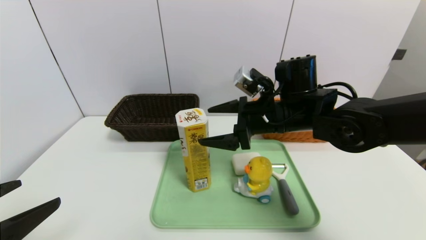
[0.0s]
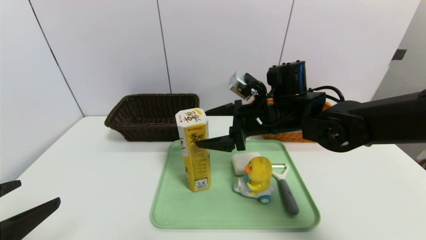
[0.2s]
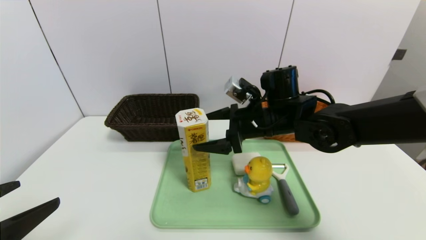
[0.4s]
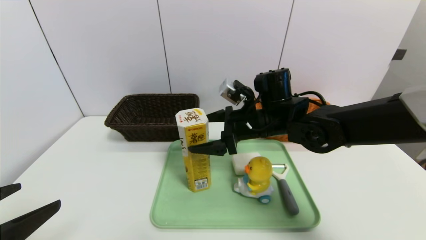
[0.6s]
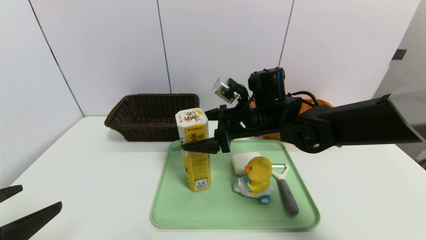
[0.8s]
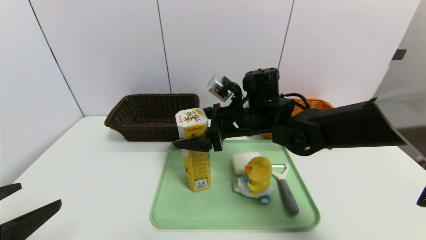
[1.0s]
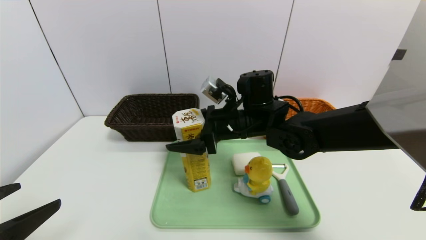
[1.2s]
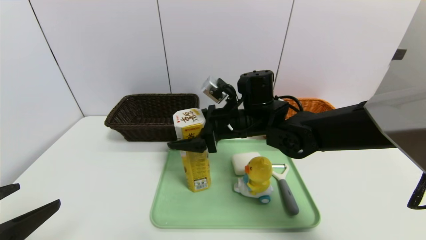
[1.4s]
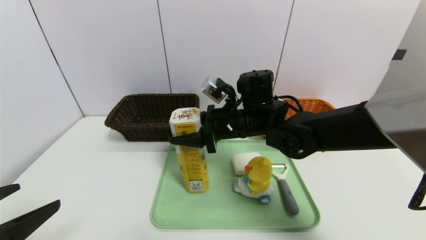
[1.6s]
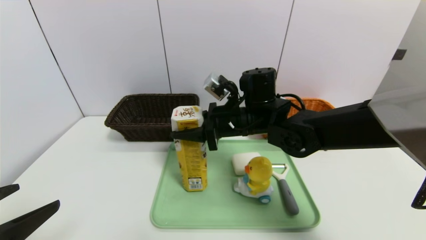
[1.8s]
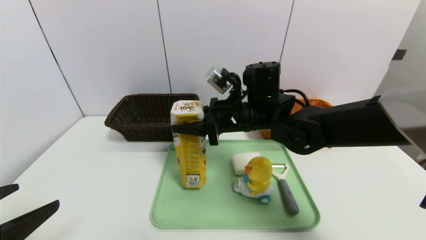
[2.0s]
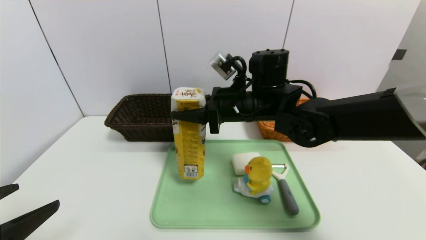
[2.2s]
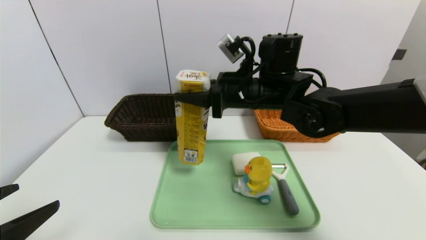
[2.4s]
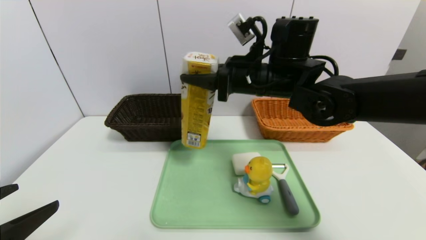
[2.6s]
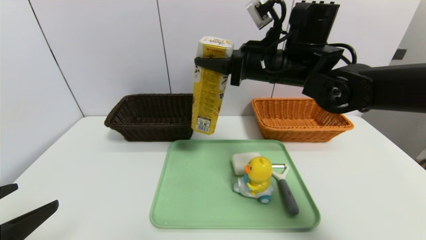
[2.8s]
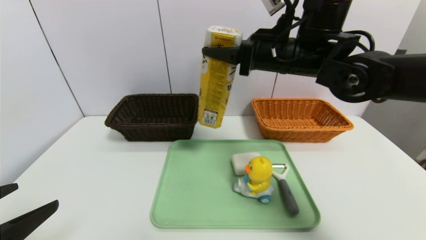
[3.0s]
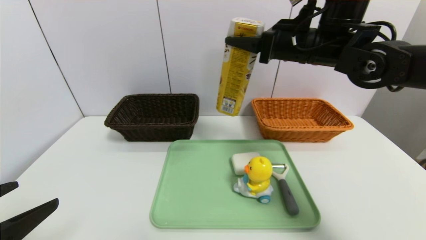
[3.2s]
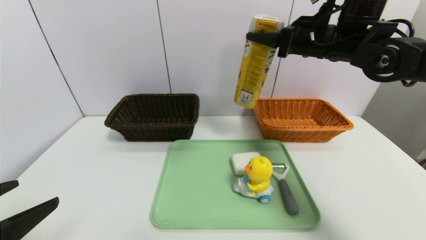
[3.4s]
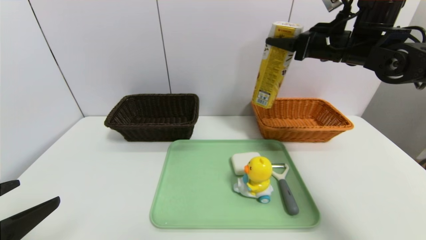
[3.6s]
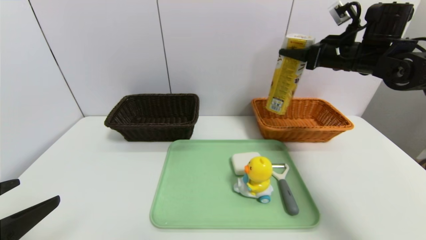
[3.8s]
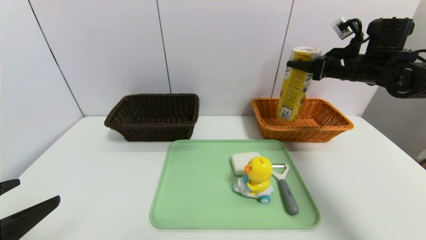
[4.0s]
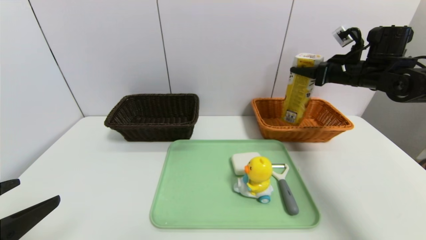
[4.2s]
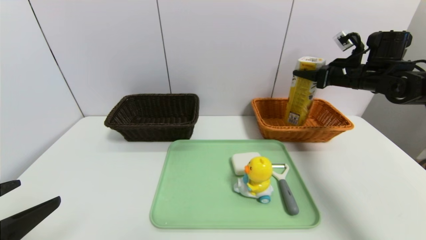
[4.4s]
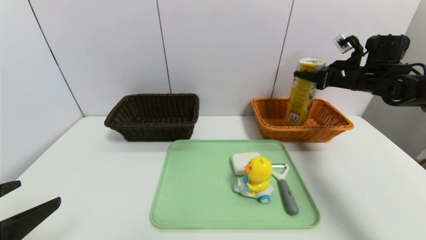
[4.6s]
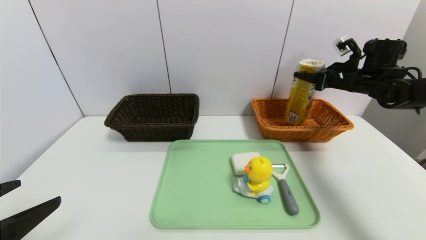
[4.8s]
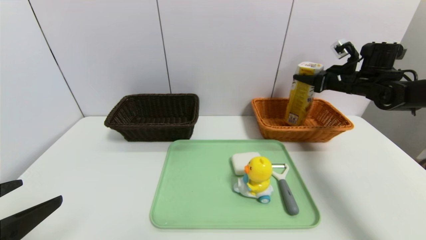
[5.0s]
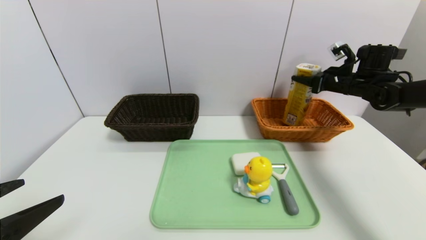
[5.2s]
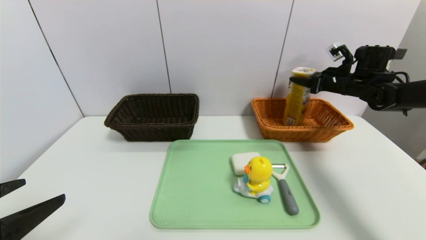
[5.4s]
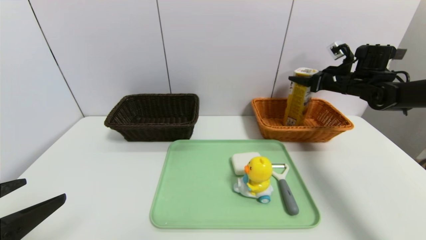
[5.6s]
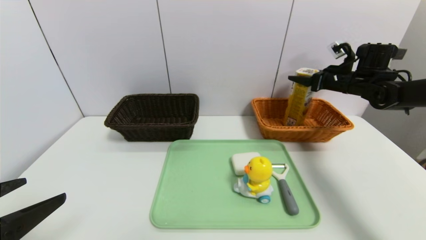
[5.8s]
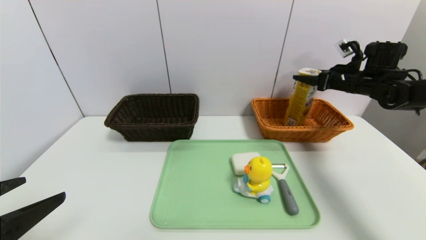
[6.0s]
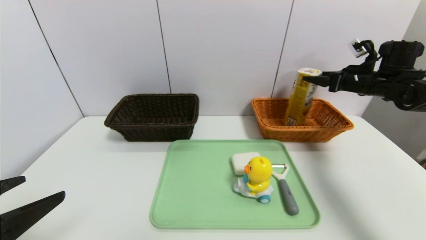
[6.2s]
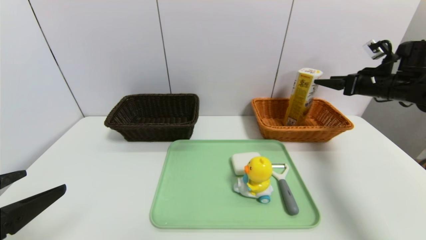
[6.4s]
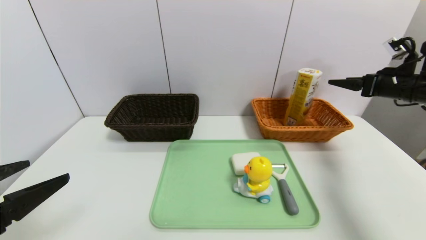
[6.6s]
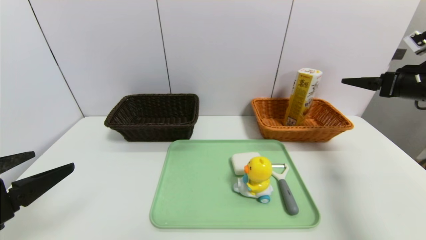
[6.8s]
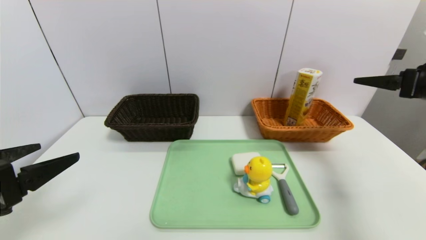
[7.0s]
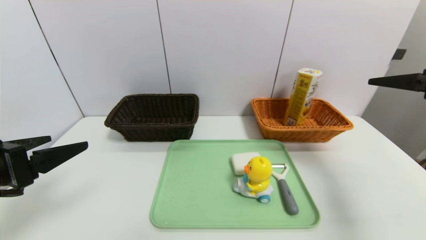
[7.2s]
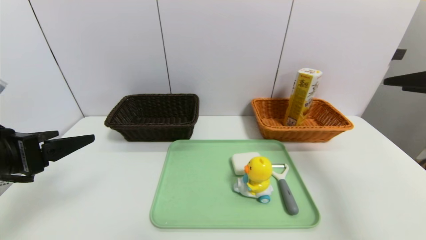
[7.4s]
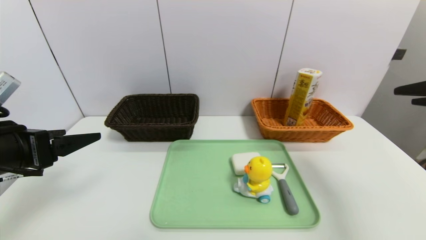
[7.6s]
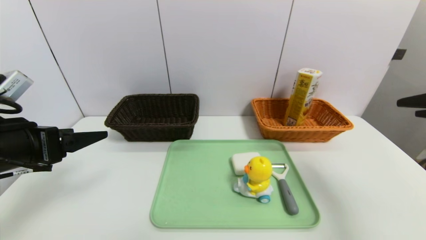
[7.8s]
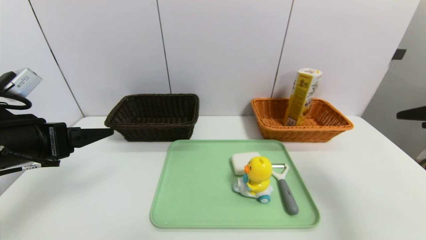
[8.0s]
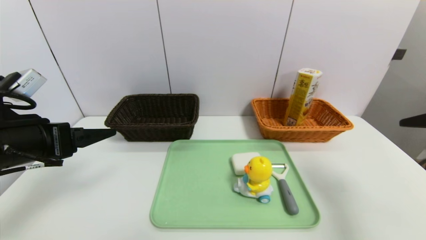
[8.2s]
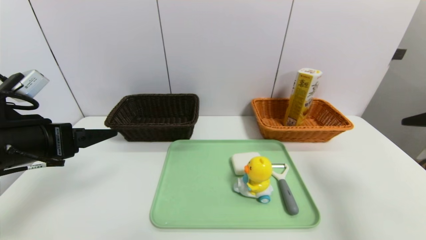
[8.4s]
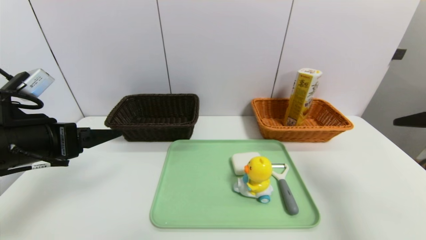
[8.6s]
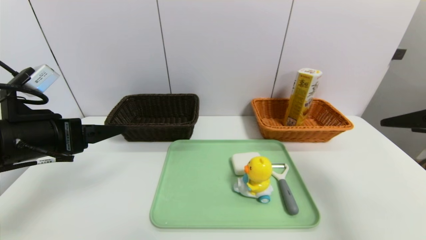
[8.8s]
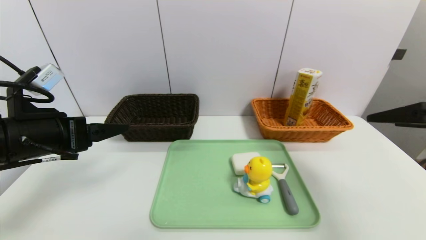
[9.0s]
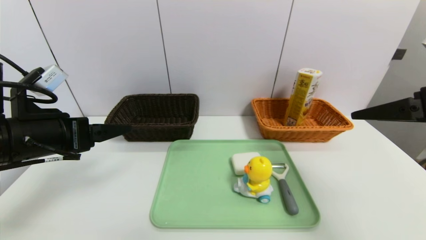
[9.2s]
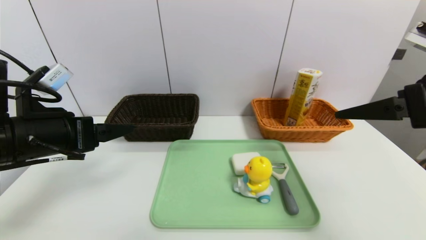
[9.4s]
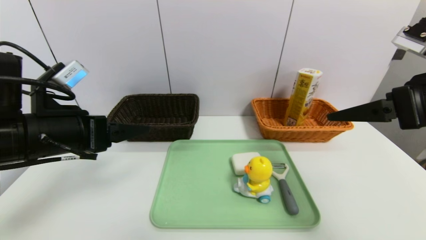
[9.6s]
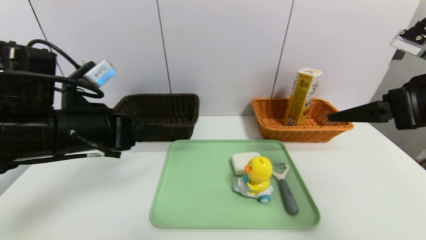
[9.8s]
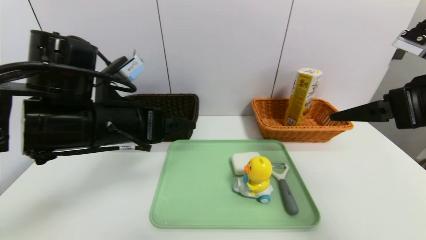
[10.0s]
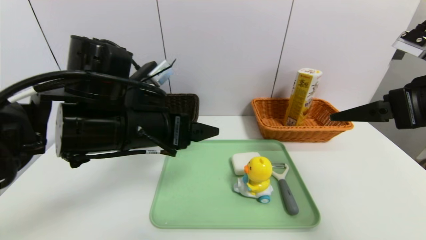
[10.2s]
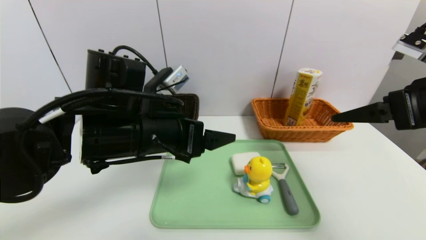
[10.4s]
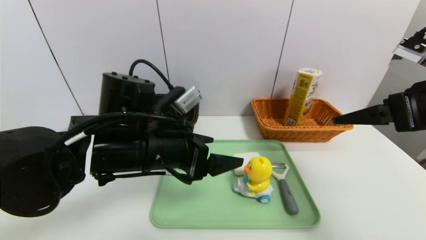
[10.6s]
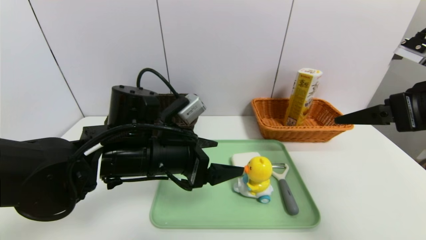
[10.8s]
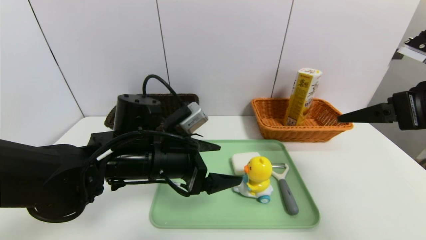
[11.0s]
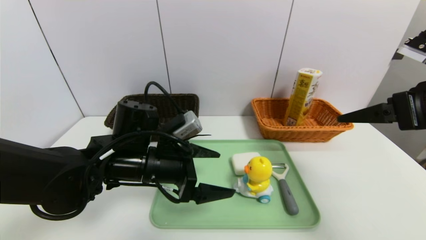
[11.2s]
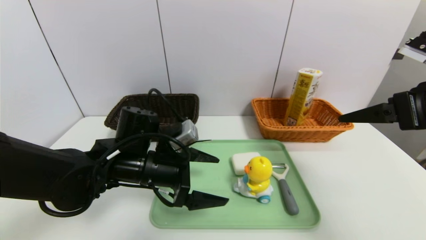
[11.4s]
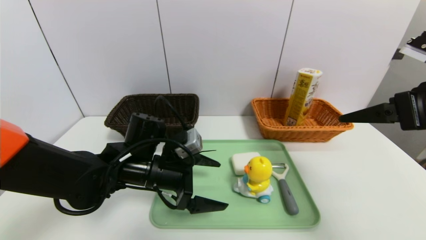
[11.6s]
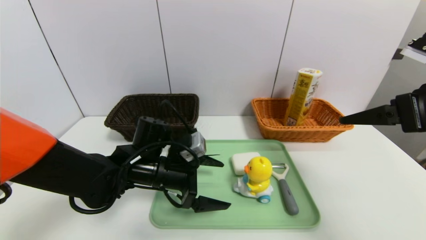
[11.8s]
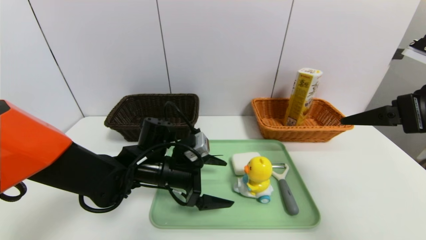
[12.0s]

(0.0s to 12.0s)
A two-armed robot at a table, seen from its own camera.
Task of the whole recording: place the food in the right basket with the right gripper, and place the non food items in the left basket with the left gripper.
Step, 0.0s - 6.2s: Grasp the potato chips and put it in the right basket.
0.0s - 1.6s: The right gripper heads to the left, covering about 5 cm, and closes its fingers.
1.6s - 3.0s: The right gripper goes approximately 15 cm upward and to the right.
3.0s - 4.4s: The right gripper is displaced to the right by roughly 20 cm.
4.4s - 6.0s: The right gripper opens.
6.0s - 7.6s: The left gripper shifts approximately 10 cm forward. Meanwhile the right gripper travels backward by approximately 25 cm.
9.0s - 10.4s: The left gripper shifts about 15 cm to the right.
10.4s - 12.0s: The left gripper is displaced downward and forward by about 15 cm.

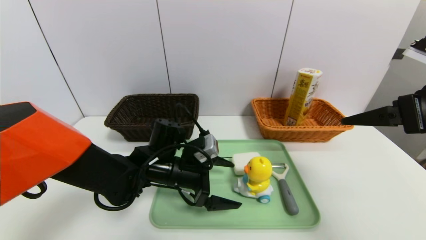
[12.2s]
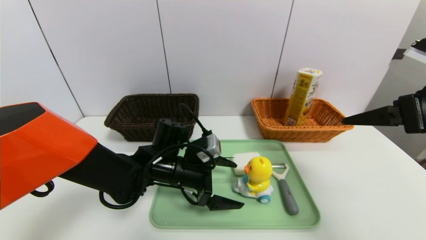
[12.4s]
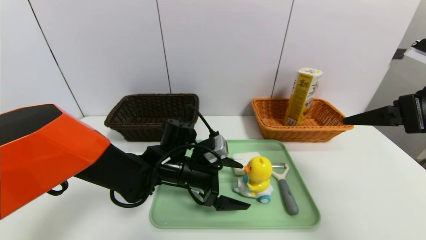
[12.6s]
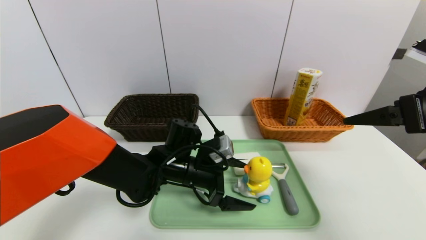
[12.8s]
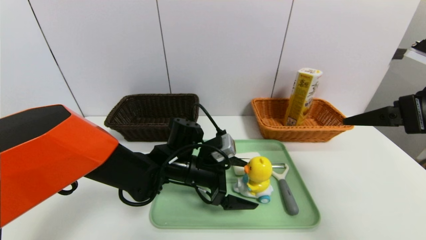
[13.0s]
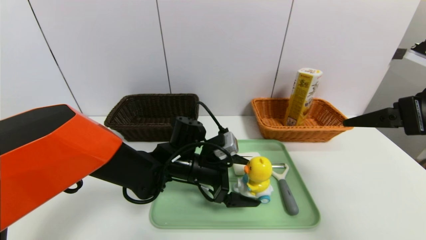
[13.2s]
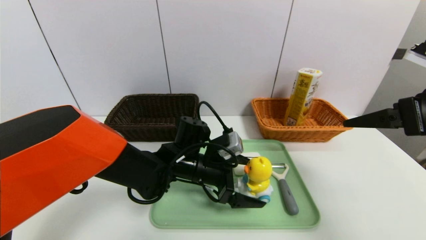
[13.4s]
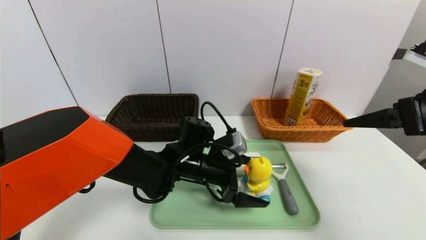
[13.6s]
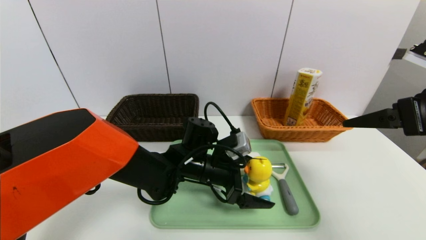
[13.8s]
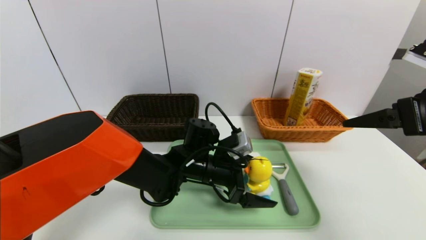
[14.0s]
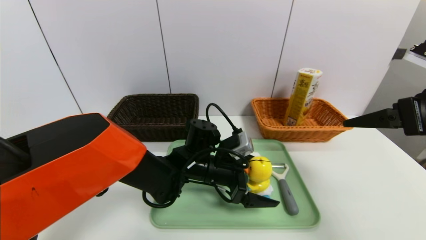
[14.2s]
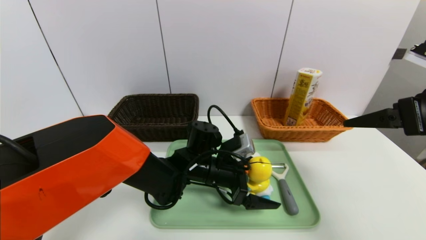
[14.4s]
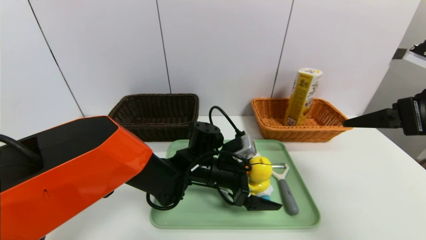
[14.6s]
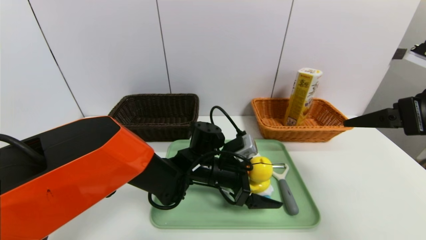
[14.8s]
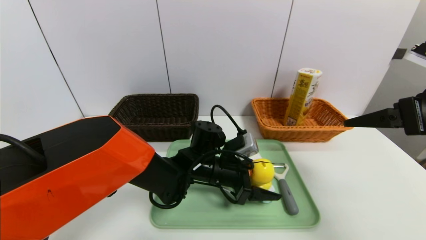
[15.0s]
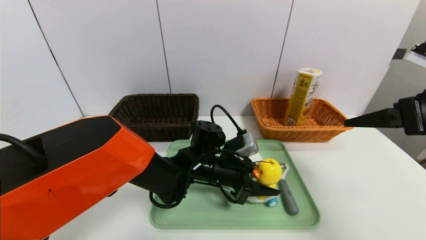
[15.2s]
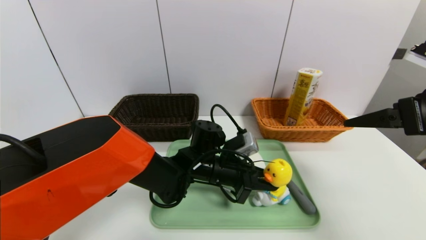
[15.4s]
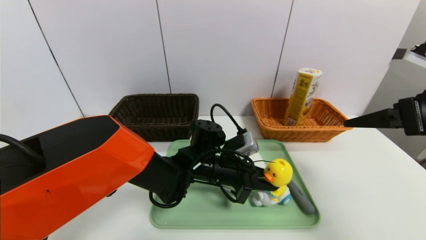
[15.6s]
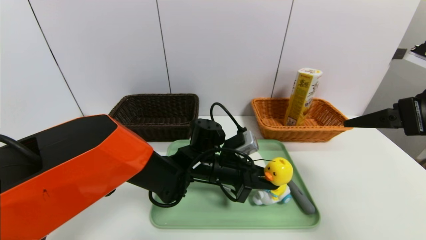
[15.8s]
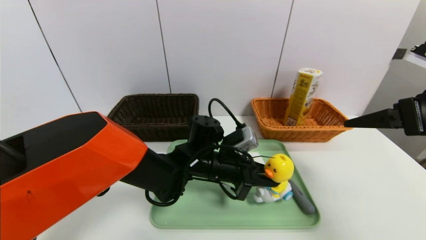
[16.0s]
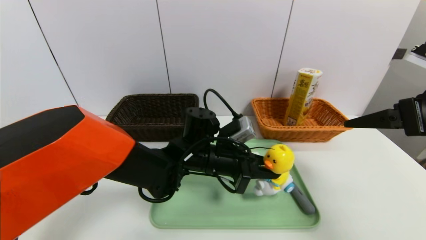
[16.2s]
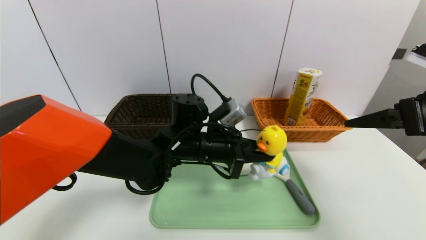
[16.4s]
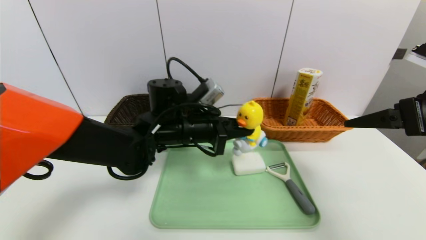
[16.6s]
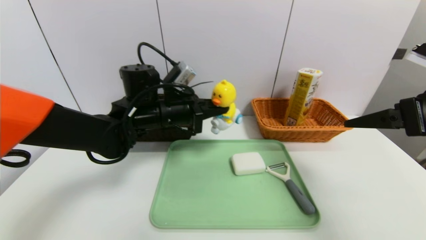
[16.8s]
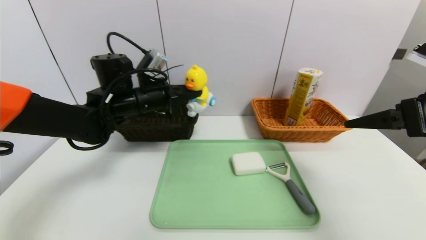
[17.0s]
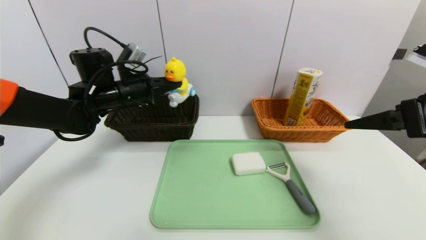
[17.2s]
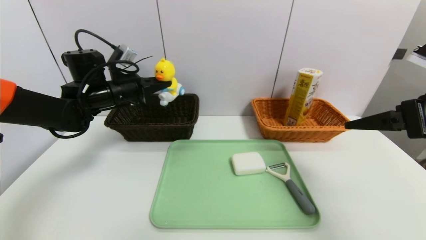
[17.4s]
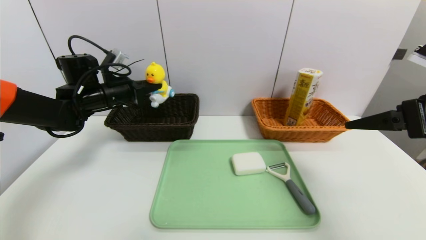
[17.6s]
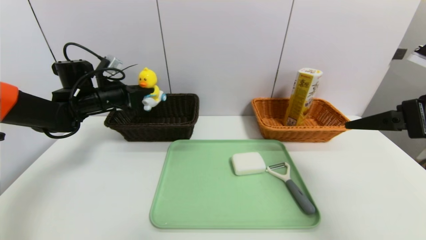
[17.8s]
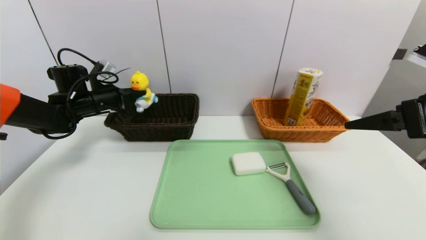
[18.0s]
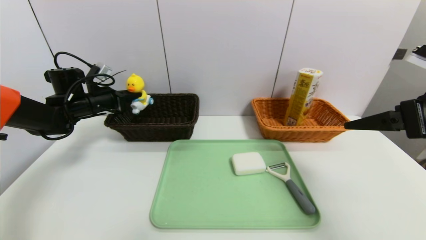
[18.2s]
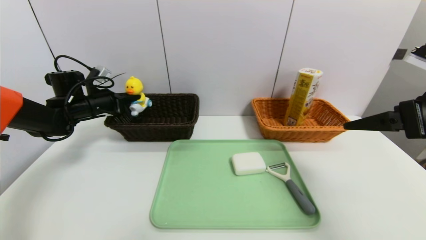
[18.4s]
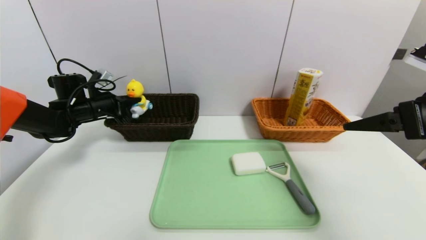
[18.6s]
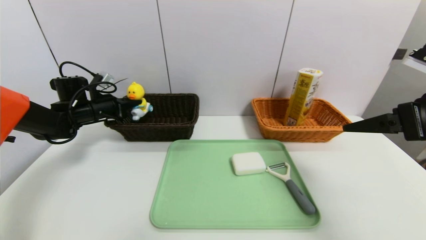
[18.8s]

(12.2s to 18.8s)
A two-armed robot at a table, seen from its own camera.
Task of the whole recording: place the food in the right basket with the right gripper, and place the non food items in the left basket with the left gripper.
12.2s - 13.8s: The left gripper goes approximately 5 cm to the right.
13.8s - 15.4s: The left gripper closes.
15.4s - 17.2s: The left gripper shifts about 25 cm to the left and upward.
17.2s - 18.8s: The left gripper travels to the left, downward and forward by some 15 cm.
